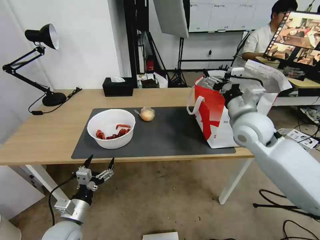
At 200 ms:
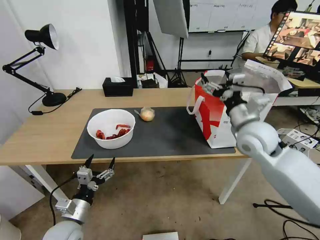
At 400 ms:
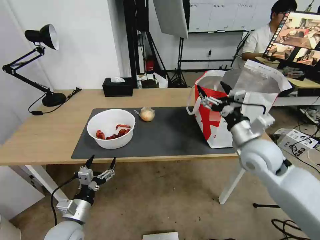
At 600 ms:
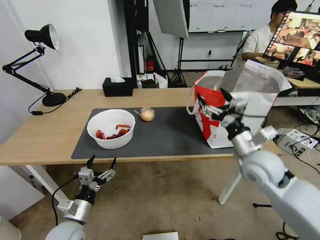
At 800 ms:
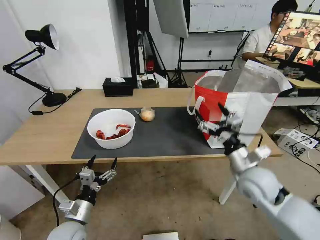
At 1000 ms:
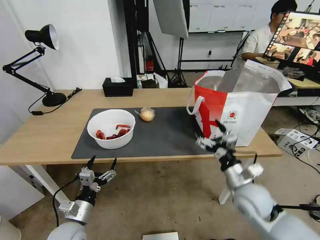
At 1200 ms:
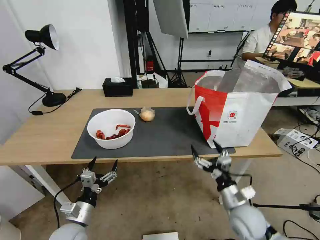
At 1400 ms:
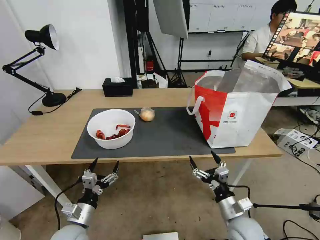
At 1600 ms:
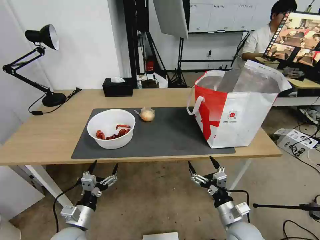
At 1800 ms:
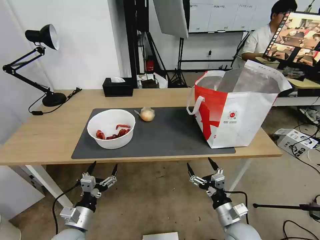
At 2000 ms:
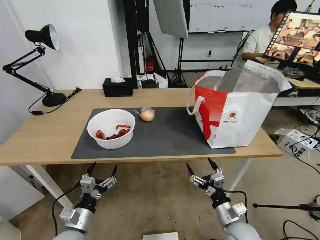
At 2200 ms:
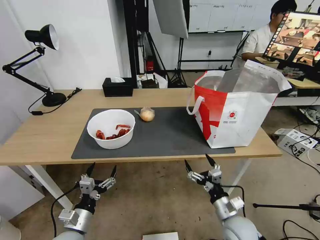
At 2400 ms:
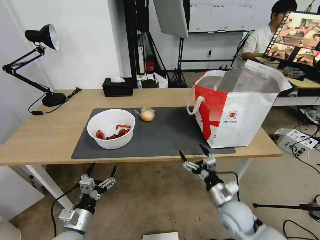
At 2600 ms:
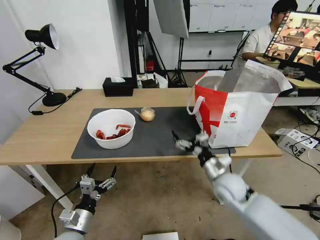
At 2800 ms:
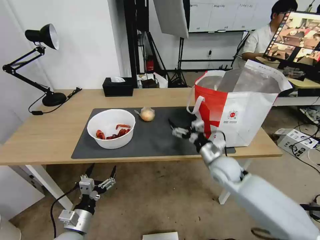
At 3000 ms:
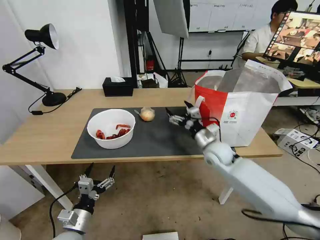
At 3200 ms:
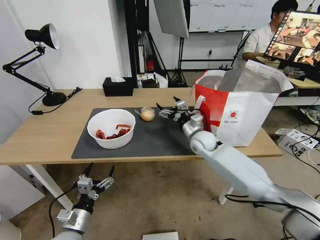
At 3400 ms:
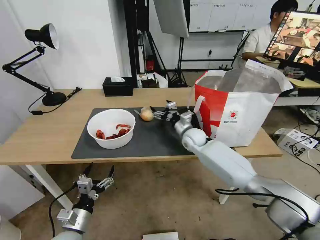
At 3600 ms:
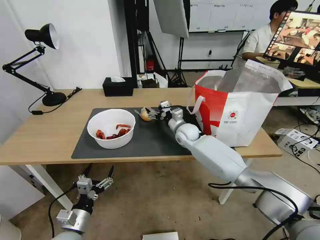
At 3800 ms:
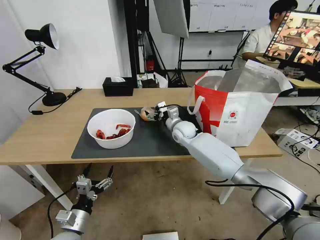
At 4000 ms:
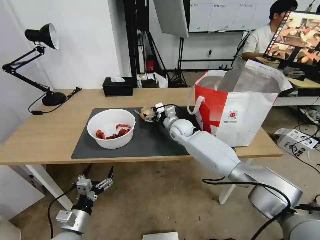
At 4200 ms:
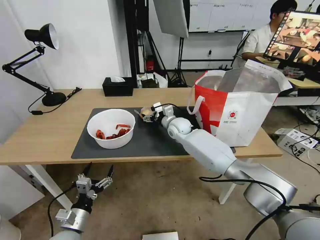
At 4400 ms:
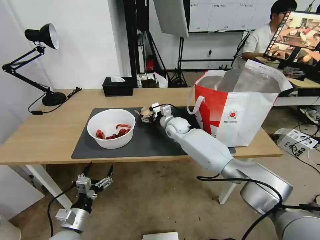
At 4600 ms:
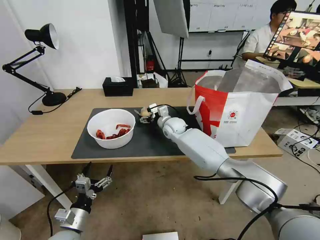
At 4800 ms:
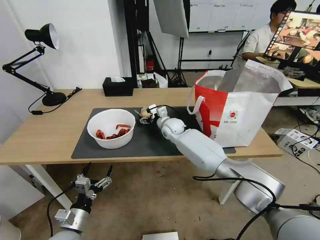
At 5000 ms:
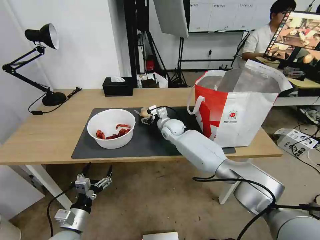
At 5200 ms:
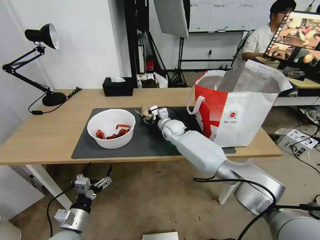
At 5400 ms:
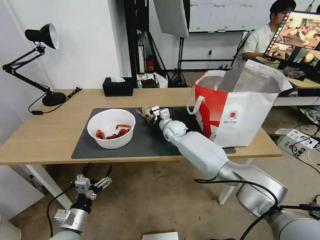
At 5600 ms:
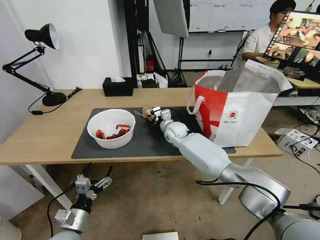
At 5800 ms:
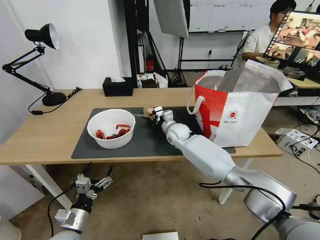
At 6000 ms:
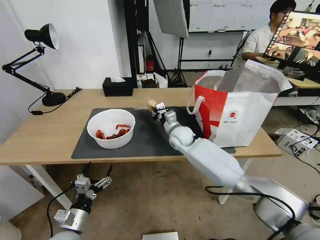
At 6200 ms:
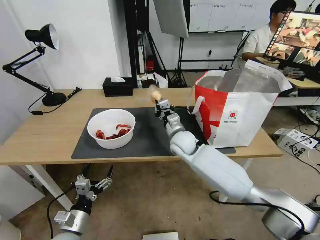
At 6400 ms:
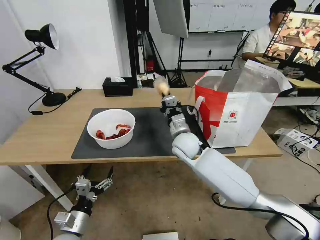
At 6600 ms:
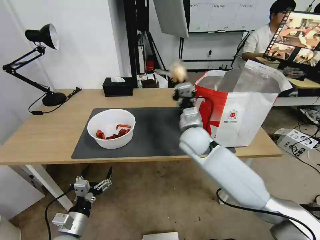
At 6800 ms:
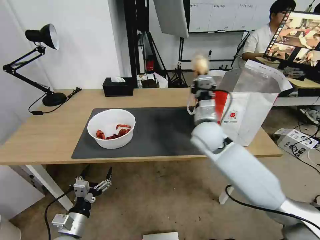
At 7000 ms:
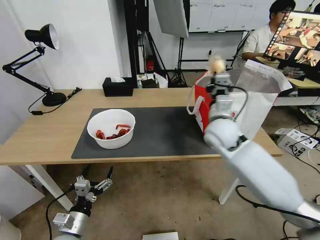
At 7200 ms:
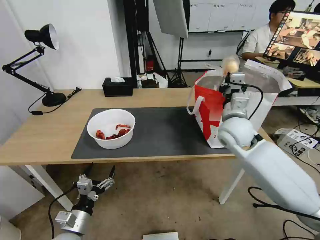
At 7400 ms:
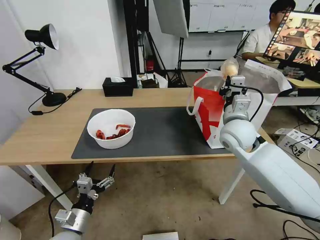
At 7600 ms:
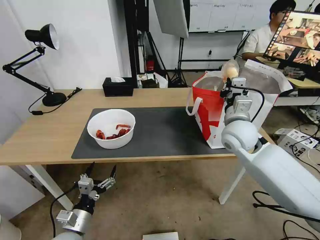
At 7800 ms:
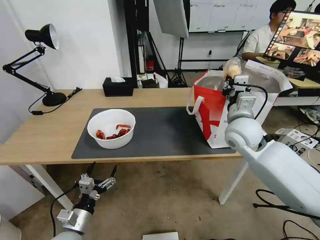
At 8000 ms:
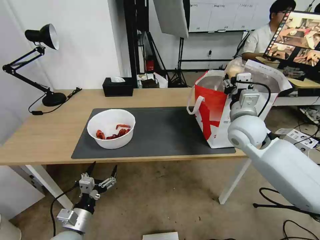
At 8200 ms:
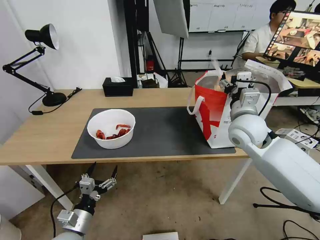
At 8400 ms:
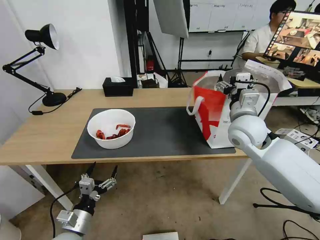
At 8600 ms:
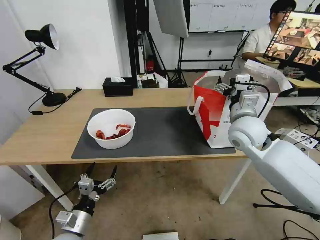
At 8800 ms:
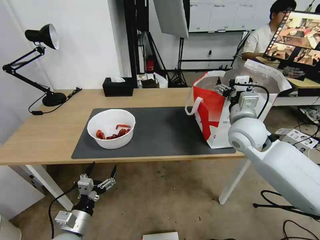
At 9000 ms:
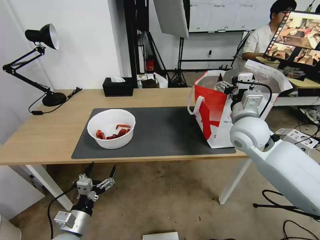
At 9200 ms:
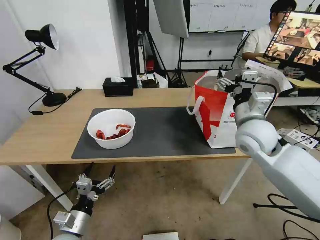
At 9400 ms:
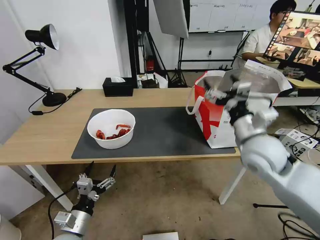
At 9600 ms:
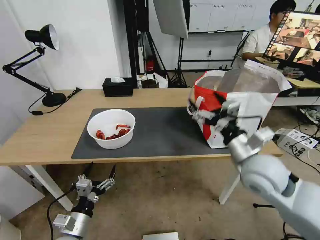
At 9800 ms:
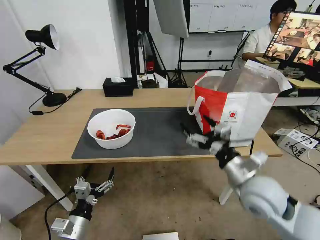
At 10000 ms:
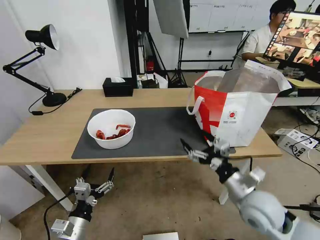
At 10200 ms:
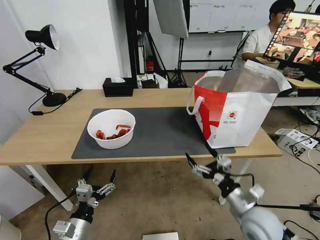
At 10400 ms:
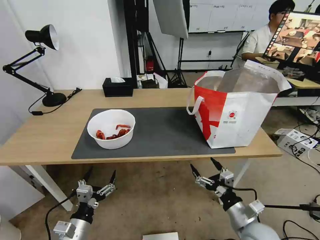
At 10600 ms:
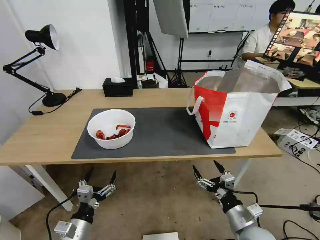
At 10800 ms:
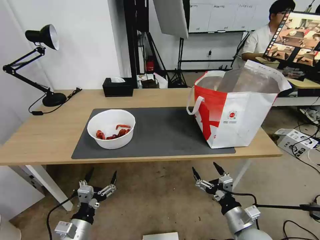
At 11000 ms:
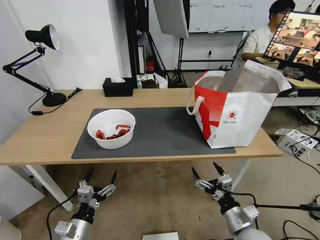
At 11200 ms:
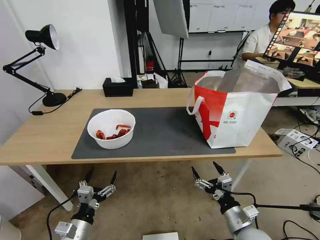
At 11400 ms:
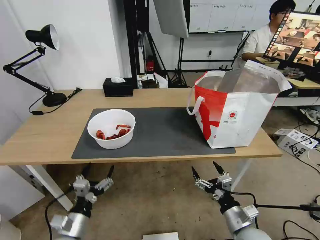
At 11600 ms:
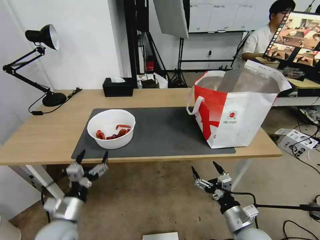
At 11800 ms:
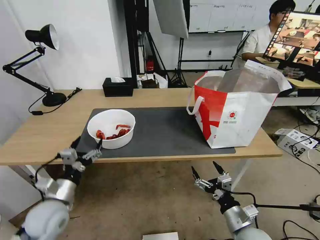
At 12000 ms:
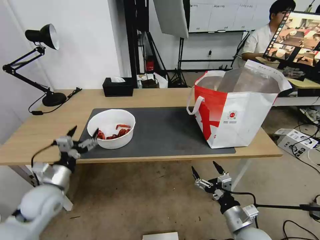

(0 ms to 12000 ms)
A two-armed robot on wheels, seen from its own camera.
Task of the whole recording: Pick up the trash from the table and place it into the takeout bag.
0 ms - 1600 ms: The right gripper shifts approximately 35 cm downward and backward.
1600 ms - 3000 ms: The right gripper travels forward and upward by roughly 30 cm.
3000 ms - 4400 ms: The right gripper shifts some 20 cm to the left and forward.
4400 ms - 6000 ms: The right gripper is displaced backward by some 5 cm, and closes its fingers.
6000 ms - 7600 ms: The right gripper travels to the right, upward and backward by roughly 20 cm.
7600 ms - 9000 ms: The right gripper opens.
9000 ms - 10400 ms: The right gripper shifts roughly 30 cm backward and downward.
10400 ms - 12000 ms: The left gripper travels forward, upward and to the left by approximately 20 cm.

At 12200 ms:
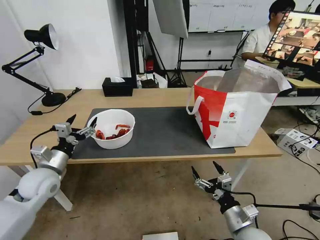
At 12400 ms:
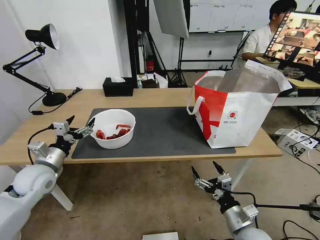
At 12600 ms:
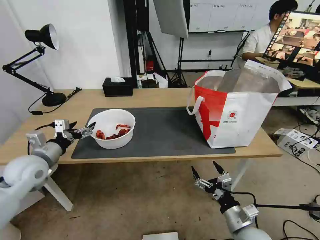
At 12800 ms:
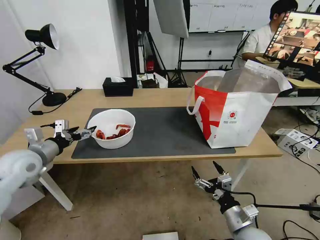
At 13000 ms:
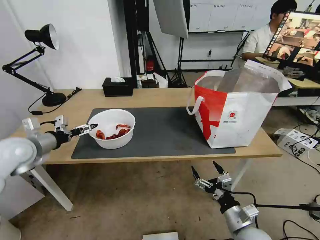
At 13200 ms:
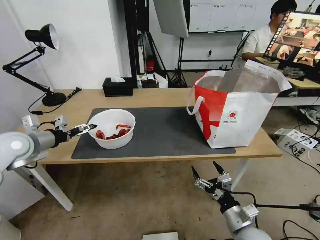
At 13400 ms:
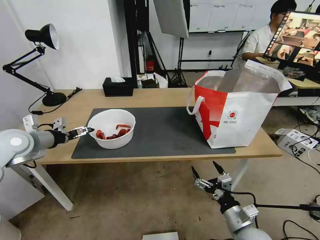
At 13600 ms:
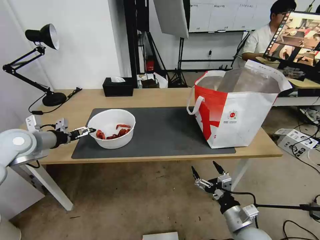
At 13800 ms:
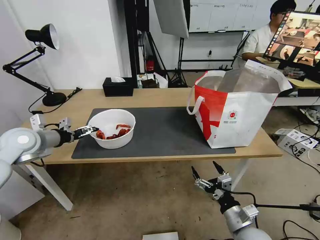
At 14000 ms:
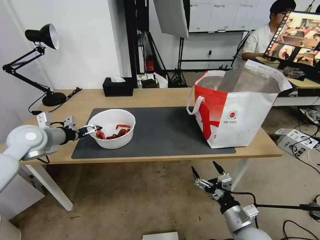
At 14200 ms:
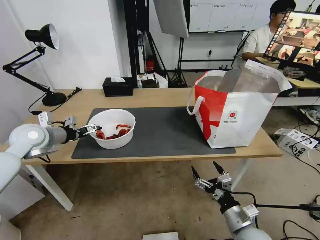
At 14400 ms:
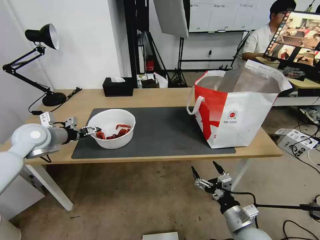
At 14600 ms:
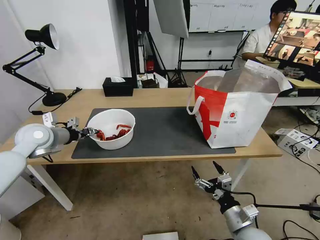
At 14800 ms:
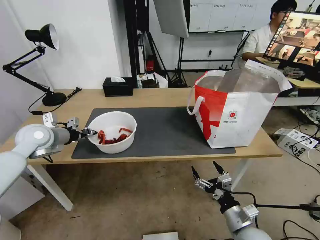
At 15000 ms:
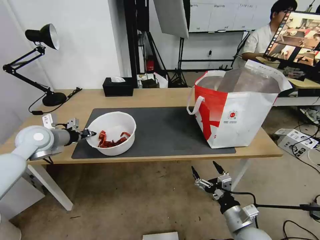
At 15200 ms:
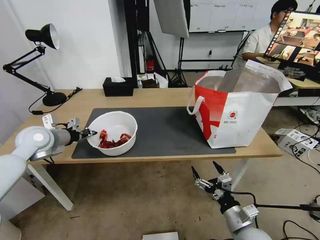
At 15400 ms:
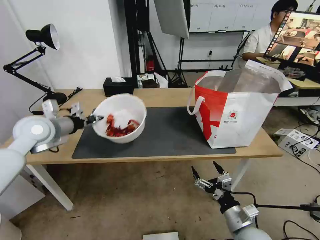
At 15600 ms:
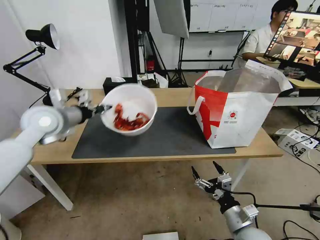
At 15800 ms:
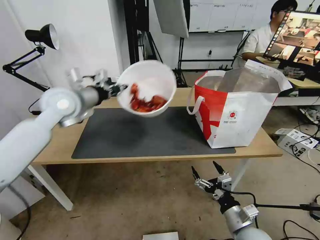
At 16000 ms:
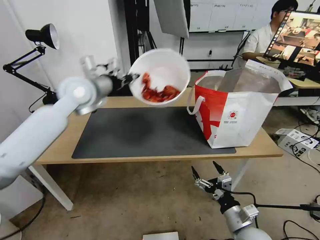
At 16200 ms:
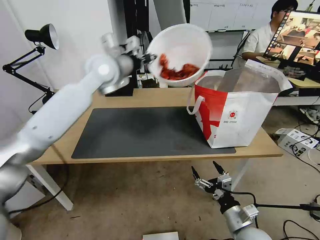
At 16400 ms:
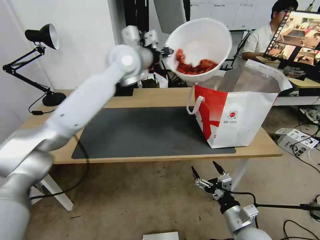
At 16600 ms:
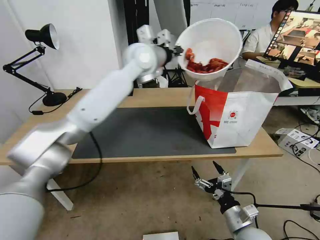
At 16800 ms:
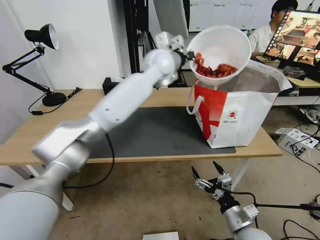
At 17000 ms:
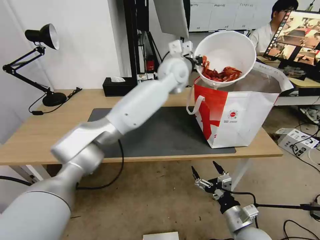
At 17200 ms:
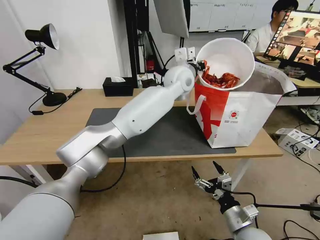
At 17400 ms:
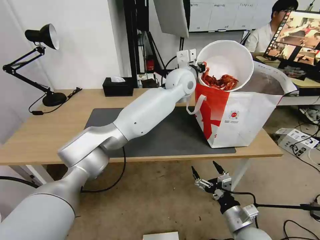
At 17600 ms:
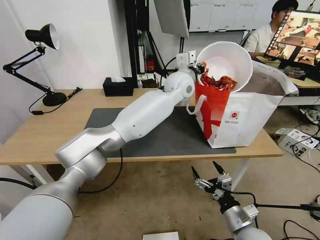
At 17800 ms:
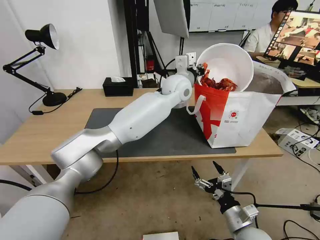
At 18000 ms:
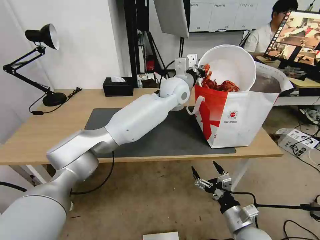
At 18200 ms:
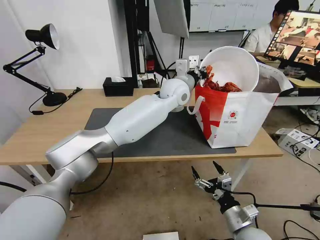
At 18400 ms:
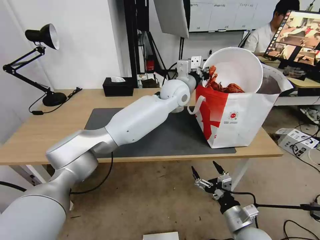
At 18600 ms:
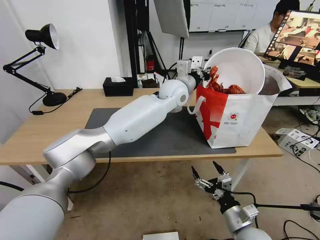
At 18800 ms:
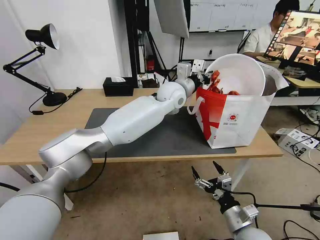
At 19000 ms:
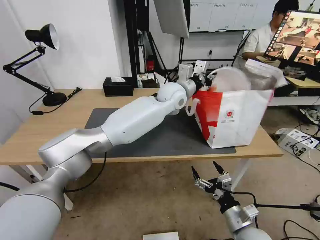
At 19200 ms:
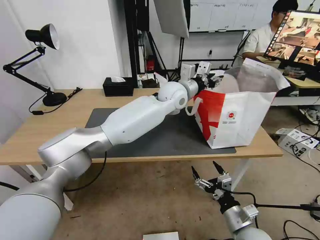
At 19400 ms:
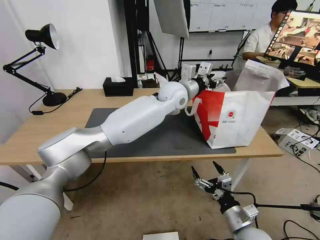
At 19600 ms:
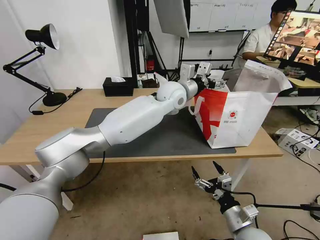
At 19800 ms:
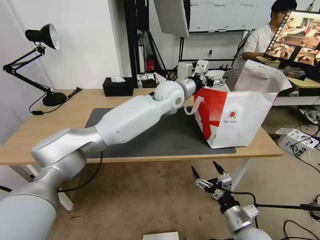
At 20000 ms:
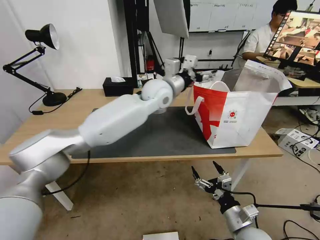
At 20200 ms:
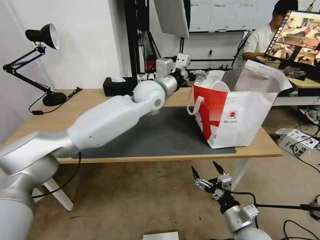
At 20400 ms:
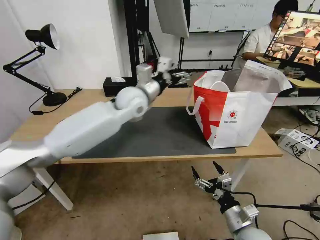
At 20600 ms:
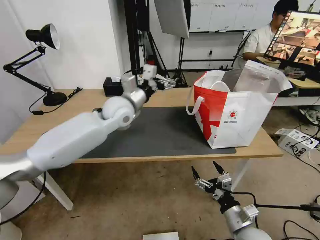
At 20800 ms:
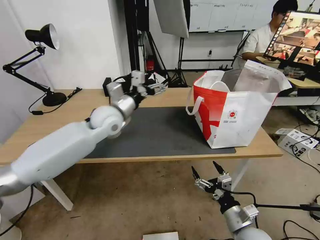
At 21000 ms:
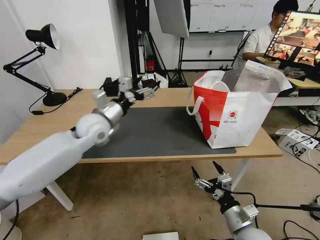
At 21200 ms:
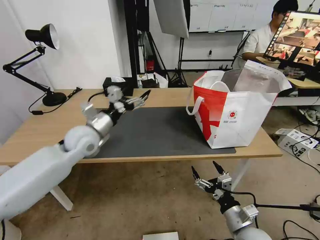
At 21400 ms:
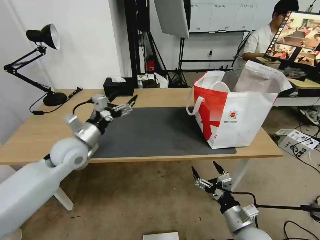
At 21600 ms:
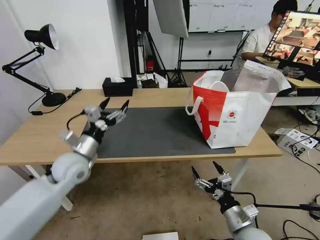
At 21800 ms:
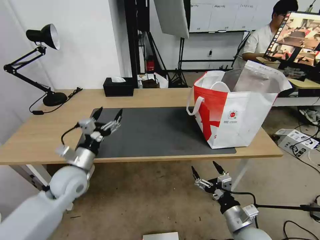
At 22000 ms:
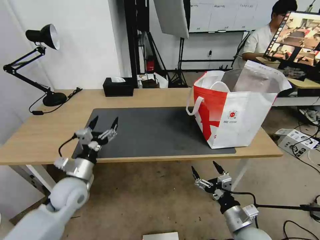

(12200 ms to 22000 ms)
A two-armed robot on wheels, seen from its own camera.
Task of the whole recording: Pick up the trash from the table and place it into the takeout bag.
12200 ms - 13600 ms: The left gripper moves upward, forward and to the left, roughly 15 cm.
13600 ms - 15000 ms: The left gripper closes up.
15000 ms - 16400 ms: The left gripper goes roughly 35 cm to the right, upward and forward.
16400 ms - 17800 ms: The left gripper travels to the right and downward by some 20 cm.
17800 ms - 19200 ms: The left gripper opens up.
19200 ms - 20600 ms: The left gripper heads to the left, covering about 20 cm, and opens up.
20600 ms - 22000 ms: The left gripper shifts about 30 cm backward, downward and to the left.
